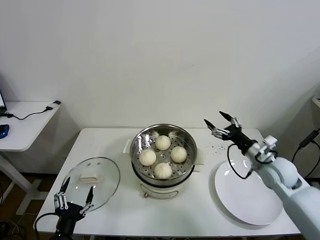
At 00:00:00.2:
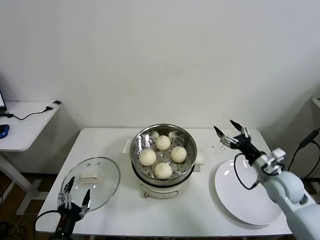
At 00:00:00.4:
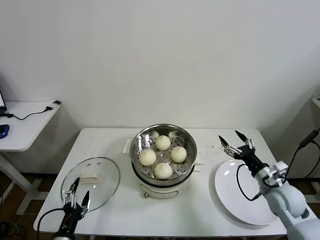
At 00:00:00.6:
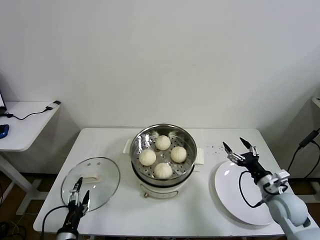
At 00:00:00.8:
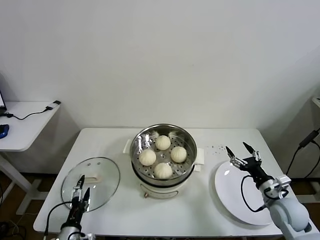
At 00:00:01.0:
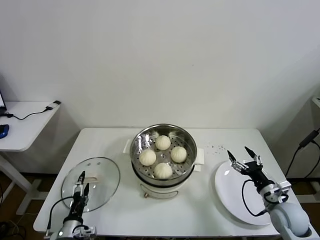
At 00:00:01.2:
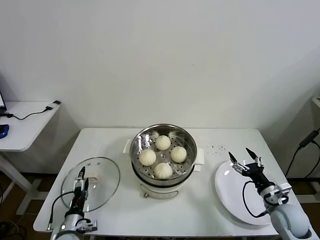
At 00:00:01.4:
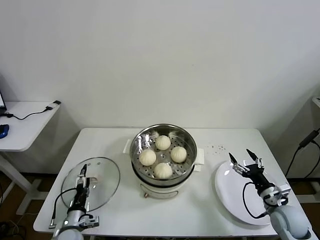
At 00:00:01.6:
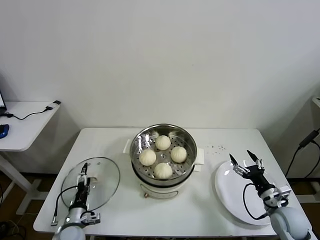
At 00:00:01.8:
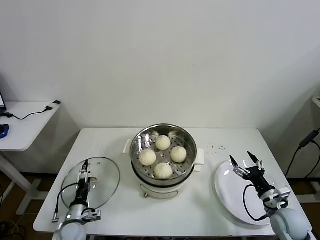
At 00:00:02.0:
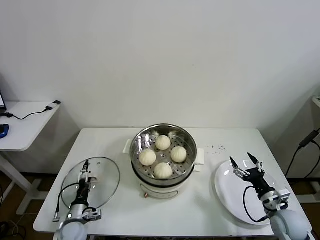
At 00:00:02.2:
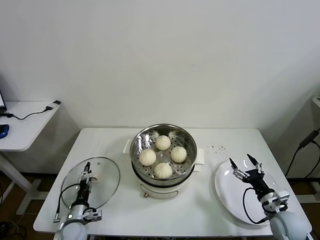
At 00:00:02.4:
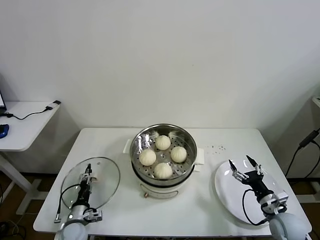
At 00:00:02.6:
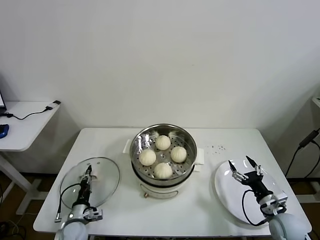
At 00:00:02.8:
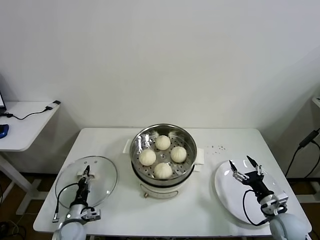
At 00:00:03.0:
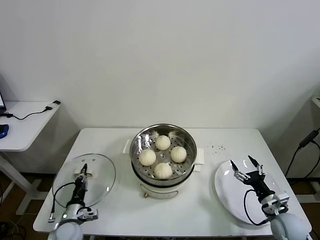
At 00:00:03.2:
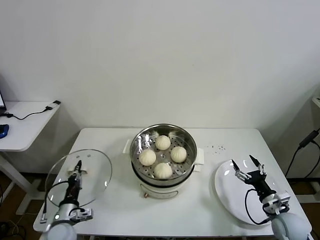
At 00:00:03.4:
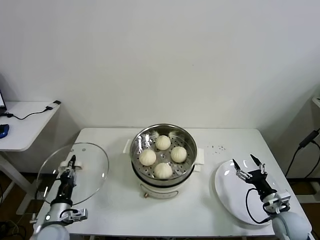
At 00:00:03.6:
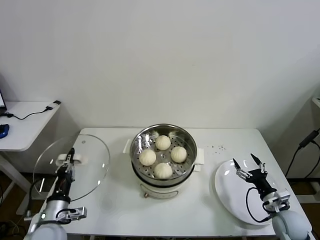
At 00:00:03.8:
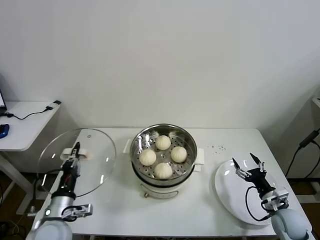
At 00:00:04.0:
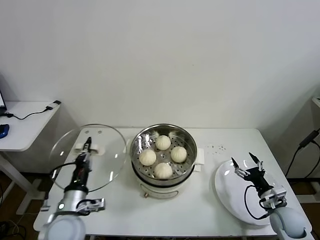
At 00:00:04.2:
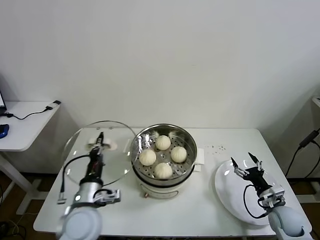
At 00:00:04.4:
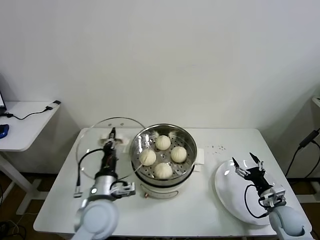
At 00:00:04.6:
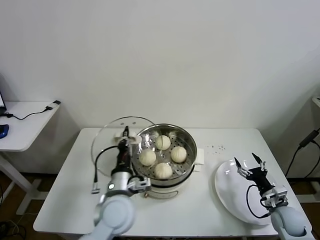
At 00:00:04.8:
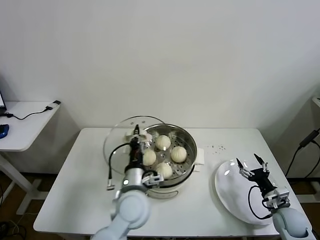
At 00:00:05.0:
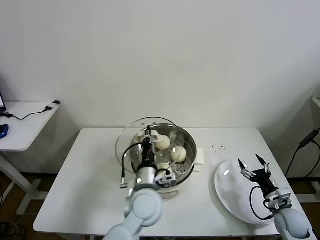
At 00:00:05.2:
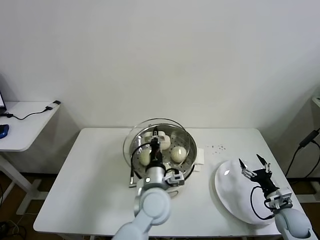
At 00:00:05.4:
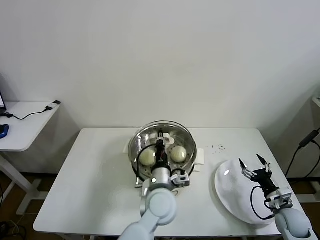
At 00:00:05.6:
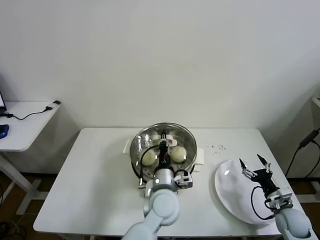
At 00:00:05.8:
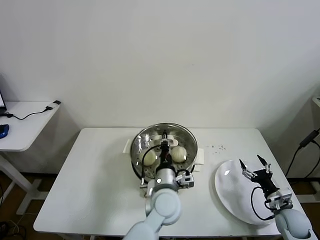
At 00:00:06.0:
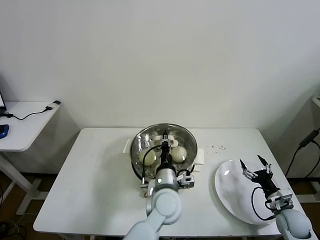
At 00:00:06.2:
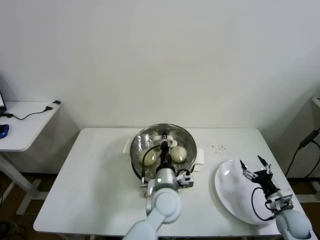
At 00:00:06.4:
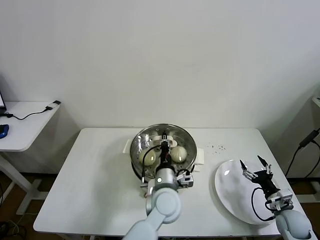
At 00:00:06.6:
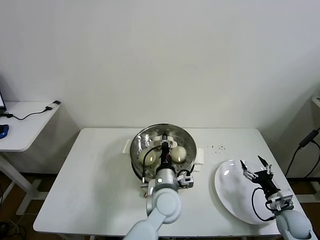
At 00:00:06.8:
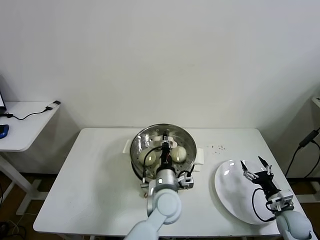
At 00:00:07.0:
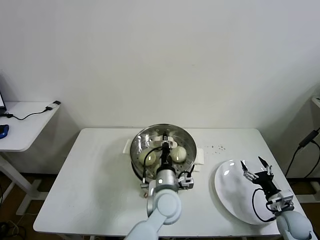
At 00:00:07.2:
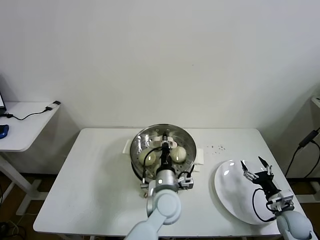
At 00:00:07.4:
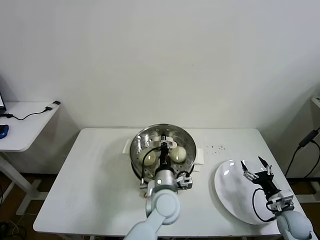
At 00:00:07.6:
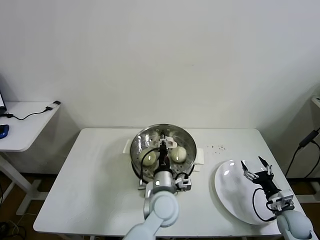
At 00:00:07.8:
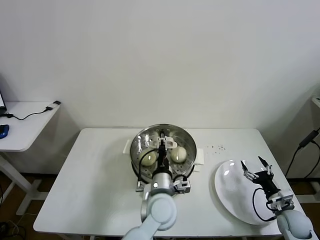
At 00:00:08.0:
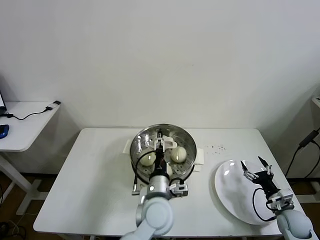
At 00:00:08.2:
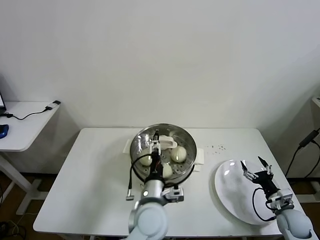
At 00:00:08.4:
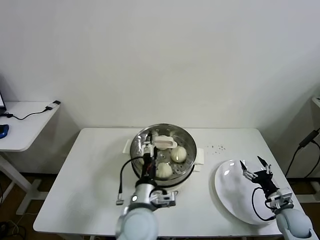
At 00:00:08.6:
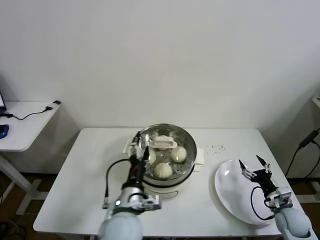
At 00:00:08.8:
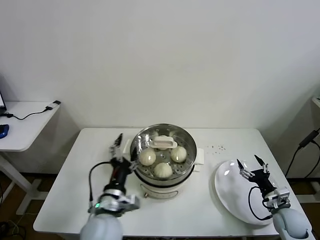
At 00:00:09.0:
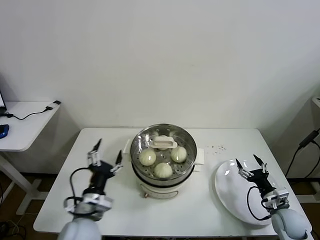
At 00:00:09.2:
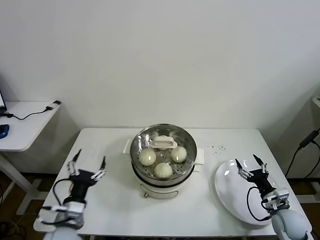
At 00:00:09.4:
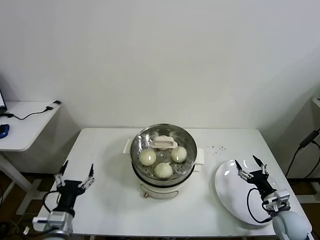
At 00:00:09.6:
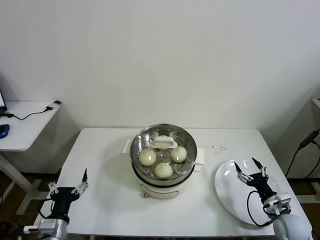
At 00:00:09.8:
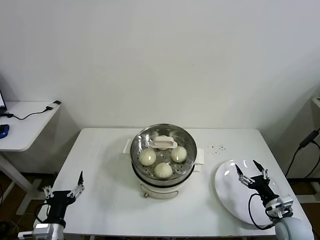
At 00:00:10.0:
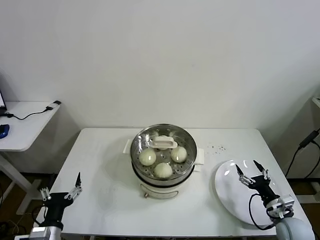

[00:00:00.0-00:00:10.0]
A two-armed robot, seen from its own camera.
Task of the whole recording: take steamed baozi put them in steamer then cover it.
Step, 00:00:00.0 to 00:00:02.6: Grasp the pot lid with left gripper.
Step, 00:00:03.0 to 00:00:07.8: Place the pot lid on the steamer with left gripper.
00:00:00.0 to 00:00:01.4: The left gripper travels downward and forward by roughly 15 cm. The right gripper goes roughly 15 cm downward and backward.
00:00:01.4 to 00:00:02.8: The left gripper closes up.
00:00:02.8 to 00:00:04.2: The left gripper goes about 25 cm upward and to the right.
00:00:04.2 to 00:00:05.8: The left gripper moves to the right, about 25 cm.
00:00:05.8 to 00:00:07.2: The grippers make only small movements.
00:00:07.2 to 00:00:08.6: The left gripper travels to the left and backward by some 10 cm, and opens.
00:00:08.6 to 00:00:10.0: The left gripper is displaced to the left by roughly 25 cm.
